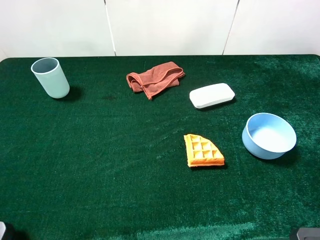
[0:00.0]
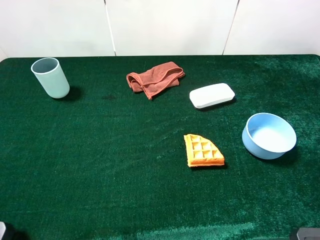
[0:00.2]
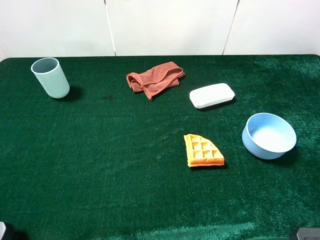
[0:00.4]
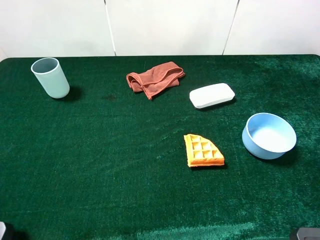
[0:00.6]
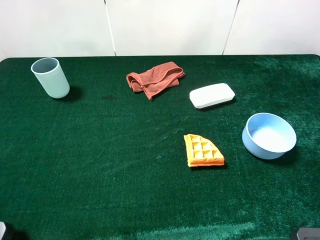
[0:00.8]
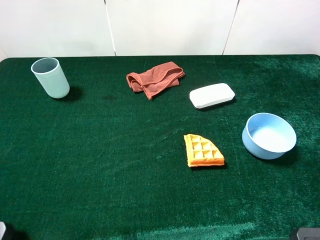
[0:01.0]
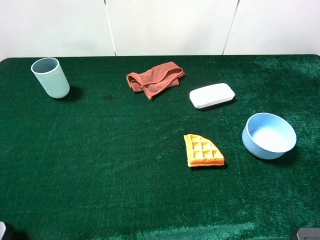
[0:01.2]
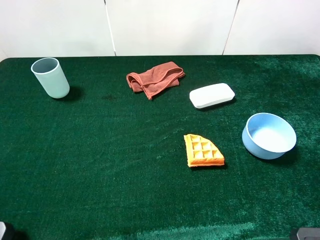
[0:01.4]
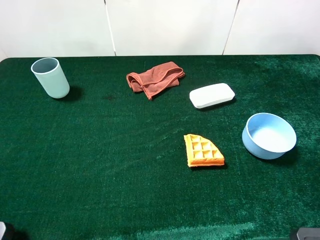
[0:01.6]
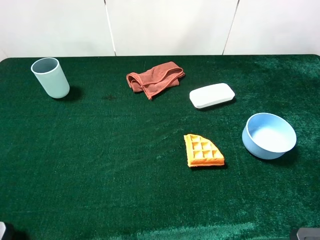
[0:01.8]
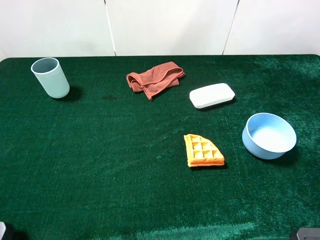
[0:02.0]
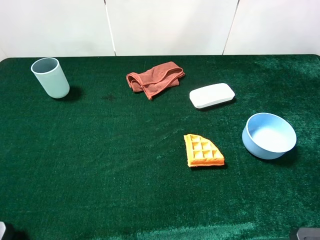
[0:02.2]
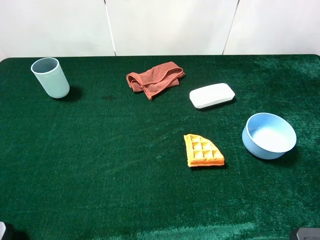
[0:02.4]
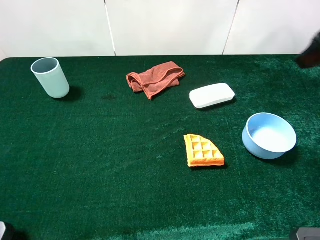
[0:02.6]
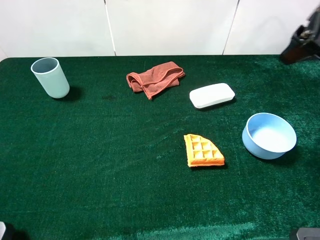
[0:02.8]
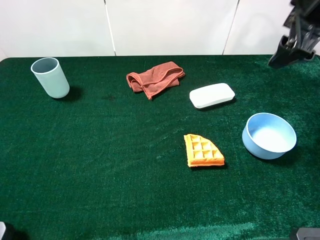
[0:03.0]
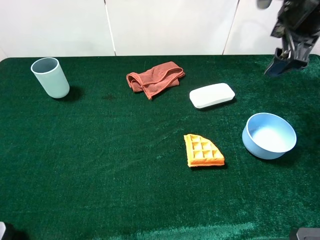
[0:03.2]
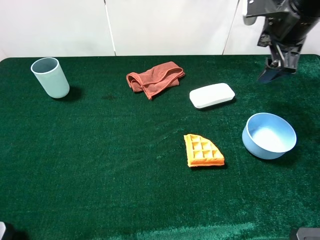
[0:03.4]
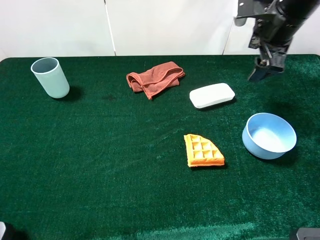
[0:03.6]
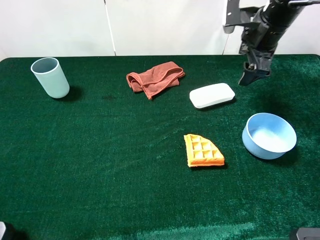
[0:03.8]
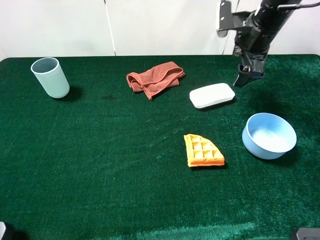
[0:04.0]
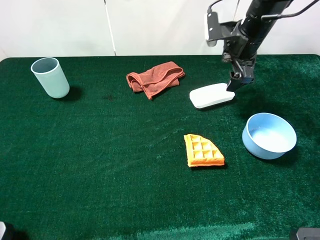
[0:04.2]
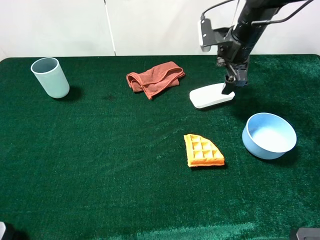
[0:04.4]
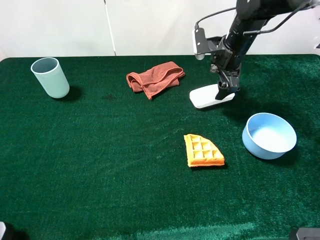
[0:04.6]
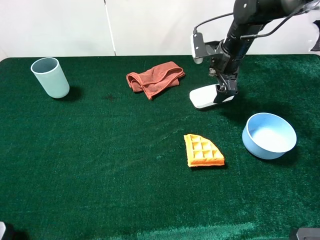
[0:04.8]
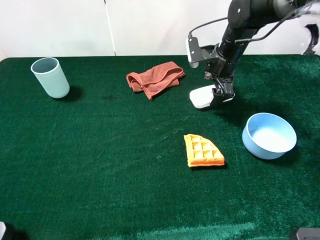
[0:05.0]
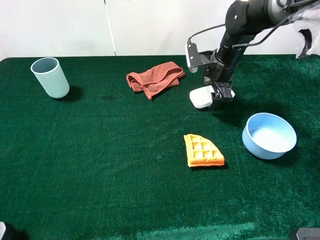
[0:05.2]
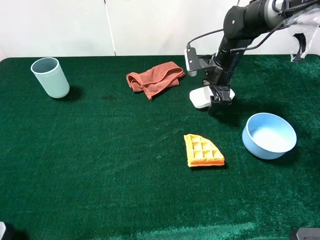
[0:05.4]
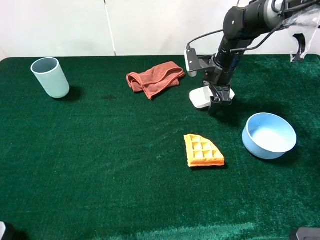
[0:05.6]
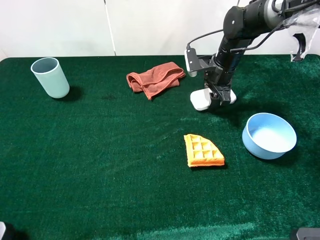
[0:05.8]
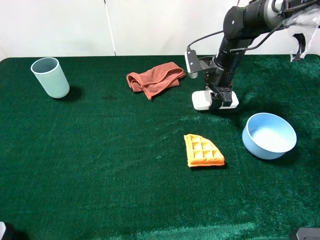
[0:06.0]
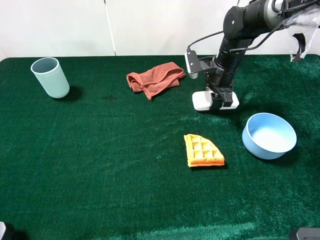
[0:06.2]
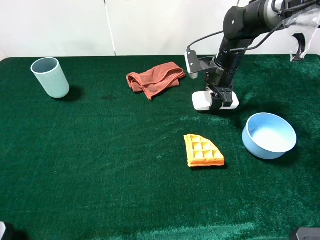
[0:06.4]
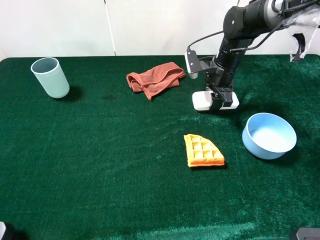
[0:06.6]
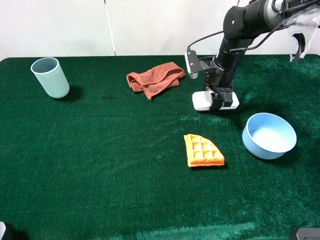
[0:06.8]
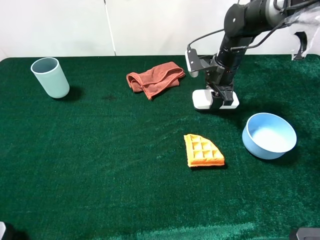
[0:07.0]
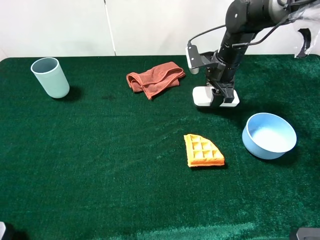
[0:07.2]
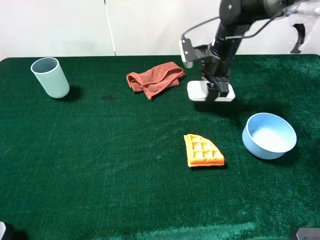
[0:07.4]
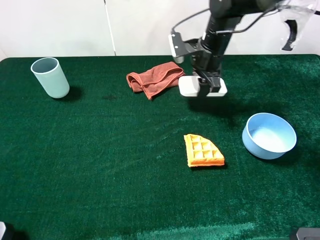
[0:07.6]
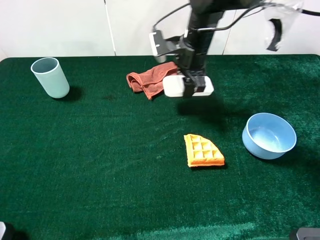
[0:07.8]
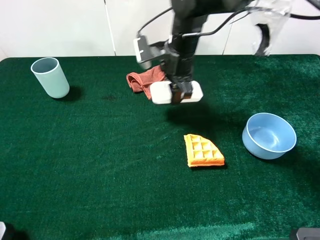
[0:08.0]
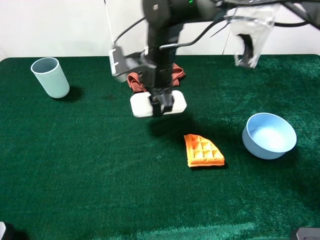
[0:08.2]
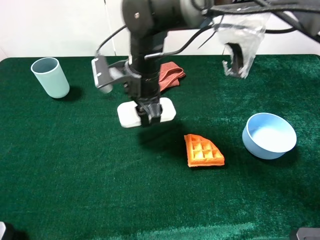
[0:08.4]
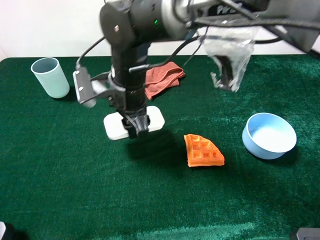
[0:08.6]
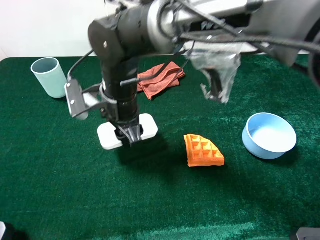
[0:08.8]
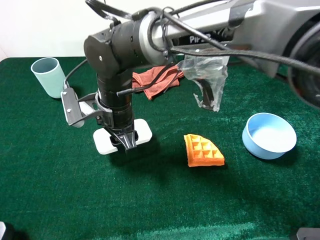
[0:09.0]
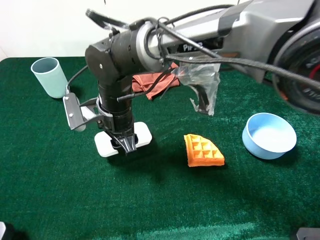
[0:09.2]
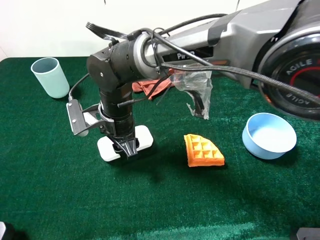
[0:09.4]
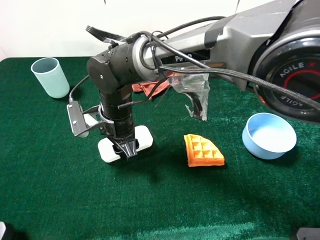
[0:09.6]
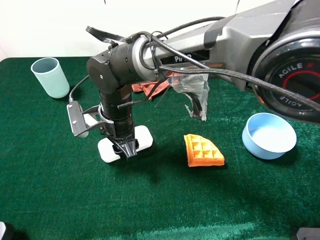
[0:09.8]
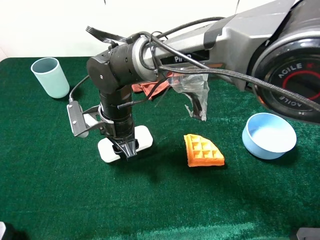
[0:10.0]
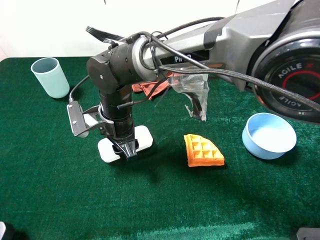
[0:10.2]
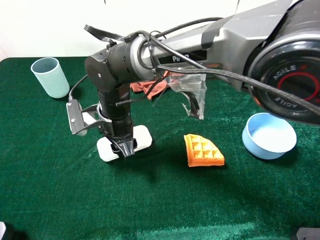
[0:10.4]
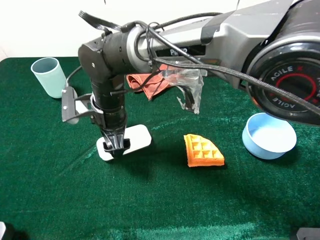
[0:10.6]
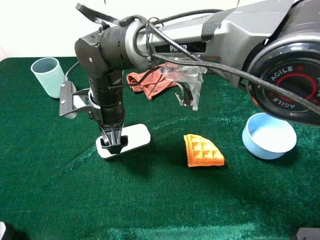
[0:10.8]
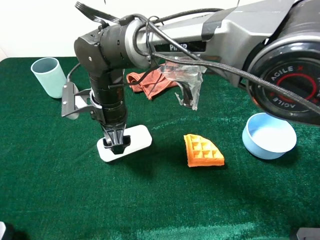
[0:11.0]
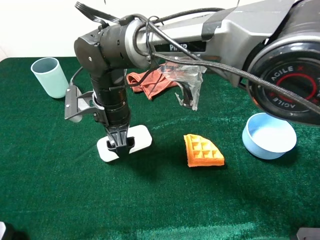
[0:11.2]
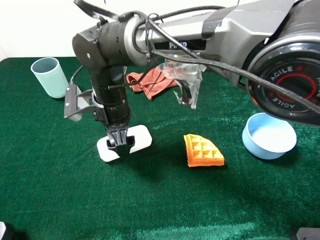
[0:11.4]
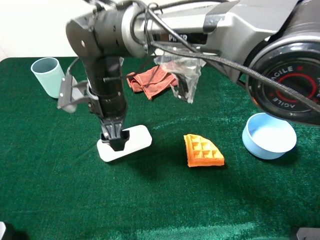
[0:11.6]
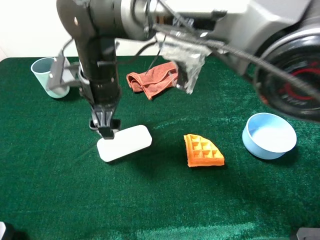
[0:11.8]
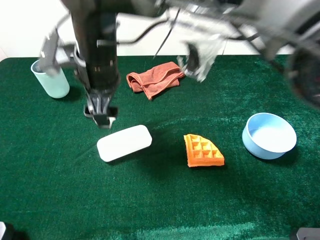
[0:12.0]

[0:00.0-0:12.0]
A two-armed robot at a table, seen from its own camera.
Task of the whole recording: the gripper move the object.
Step, 0:00.0 to 0:06.8: Grasp the white blackboard earser with the right gripper.
Step, 0:07.0 to 0:11.8: Place the white blackboard earser on the table with the right gripper.
0:01.6 to 0:03.0: The right gripper goes approximately 30 cm forward.
0:03.0 to 0:04.4: The right gripper goes roughly 15 cm downward, forward and to the left.
0:04.4 to 0:06.0: The right gripper is displaced downward by roughly 5 cm, and closes its fingers.
0:06.0 to 0:07.6: The right gripper changes place by roughly 5 cm.
0:07.6 to 0:09.0: The right gripper goes roughly 25 cm to the left and backward.
0:10.4 to 0:12.0: The right gripper travels upward by approximately 10 cm, and opens up.

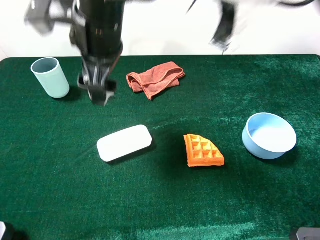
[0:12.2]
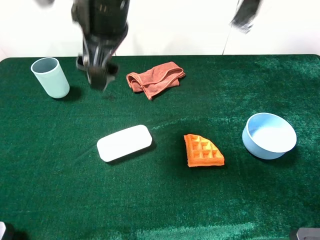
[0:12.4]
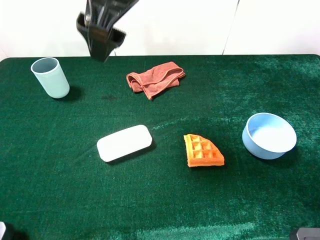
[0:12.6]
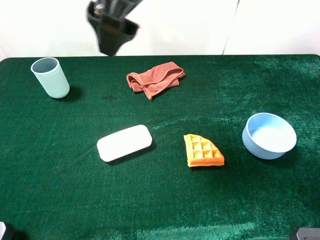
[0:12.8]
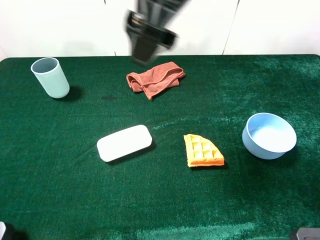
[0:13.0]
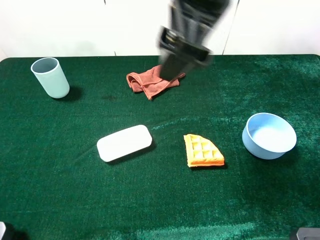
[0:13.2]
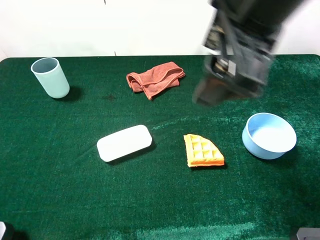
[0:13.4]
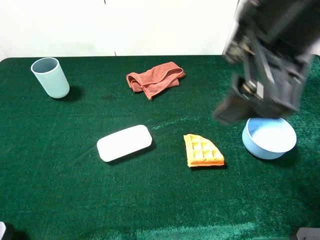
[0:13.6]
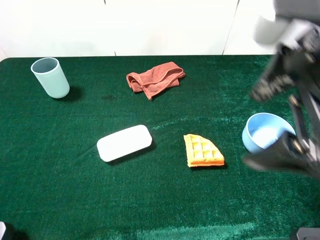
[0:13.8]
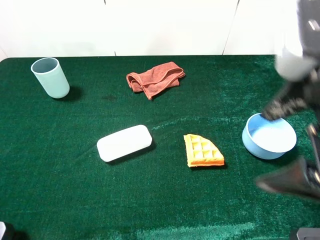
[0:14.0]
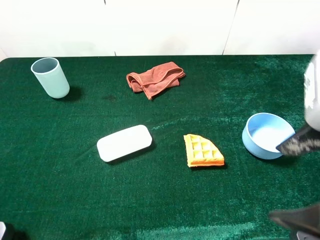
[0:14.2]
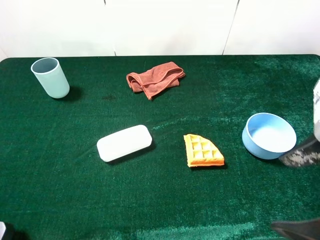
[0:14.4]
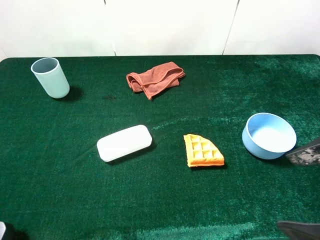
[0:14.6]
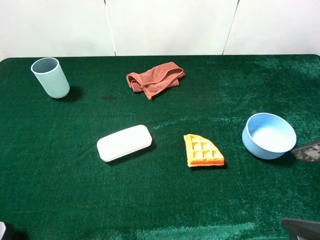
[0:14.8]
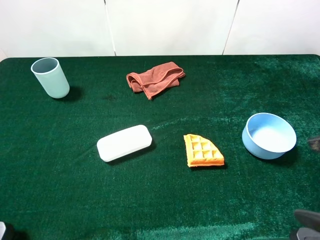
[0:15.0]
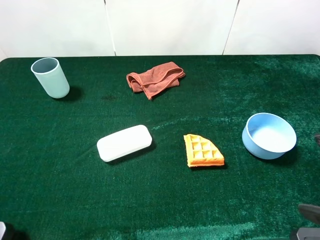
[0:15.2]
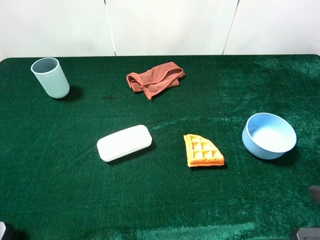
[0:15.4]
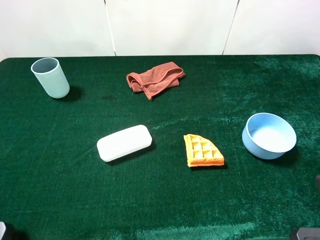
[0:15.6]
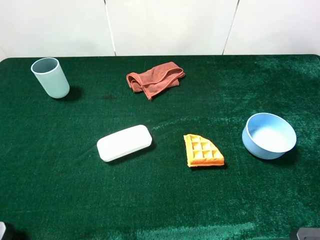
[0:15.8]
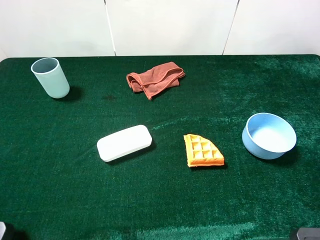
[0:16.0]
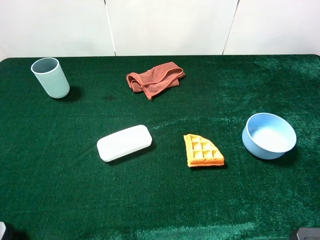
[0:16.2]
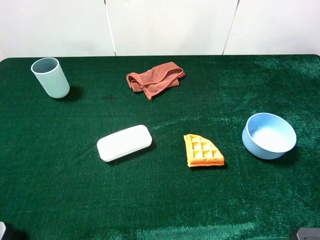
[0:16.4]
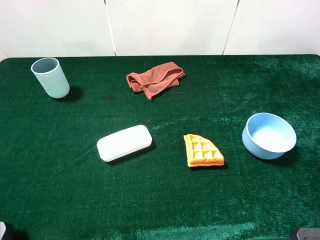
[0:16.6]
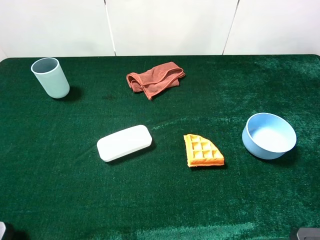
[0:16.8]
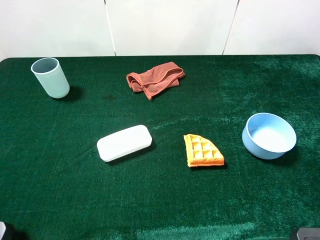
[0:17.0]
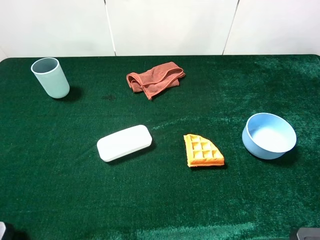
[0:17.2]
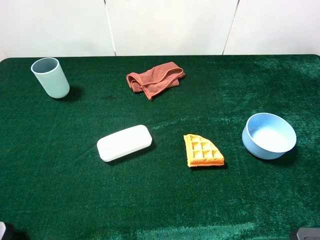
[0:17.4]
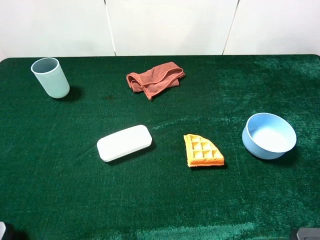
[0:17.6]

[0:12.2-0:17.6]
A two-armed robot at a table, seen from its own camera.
Task of the whole recording: the gripper move the object.
0:12.2 to 0:13.6: The right gripper is displaced to the right and backward by some 25 cm.
0:13.6 to 0:15.0: The right gripper heads to the right, backward and downward, covering about 20 cm.

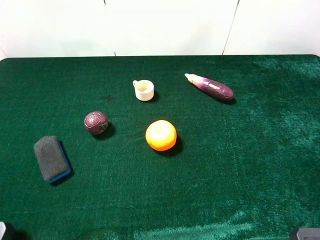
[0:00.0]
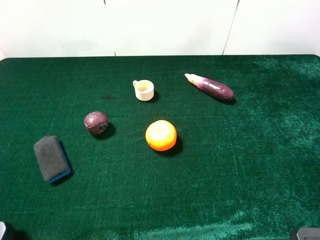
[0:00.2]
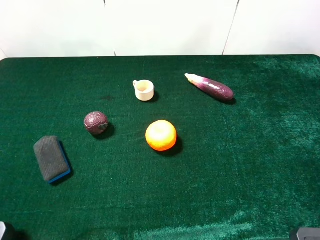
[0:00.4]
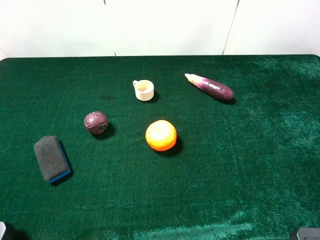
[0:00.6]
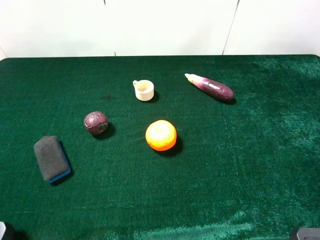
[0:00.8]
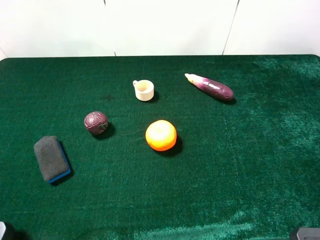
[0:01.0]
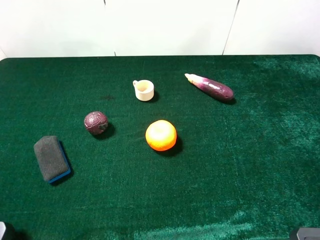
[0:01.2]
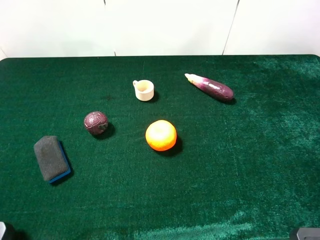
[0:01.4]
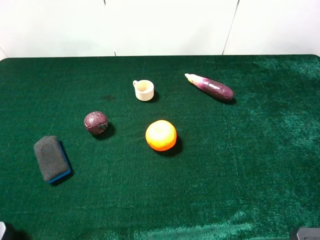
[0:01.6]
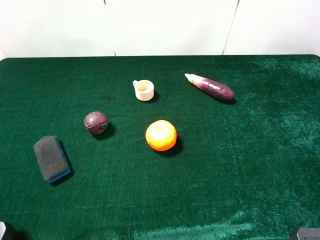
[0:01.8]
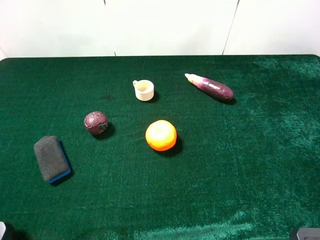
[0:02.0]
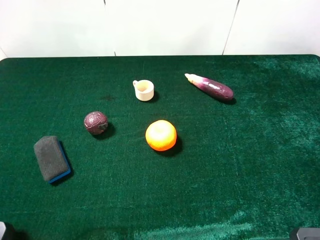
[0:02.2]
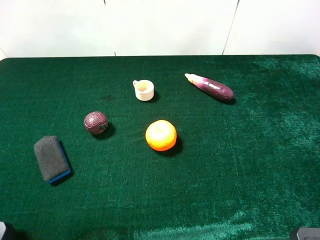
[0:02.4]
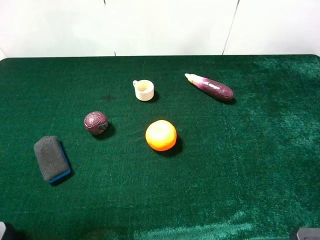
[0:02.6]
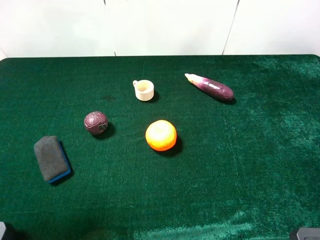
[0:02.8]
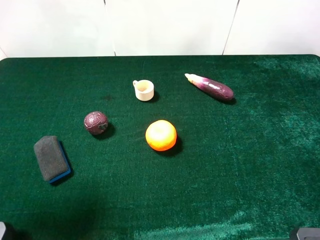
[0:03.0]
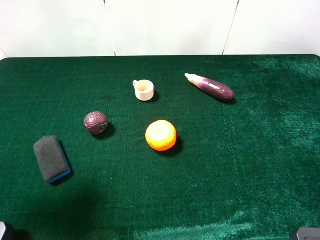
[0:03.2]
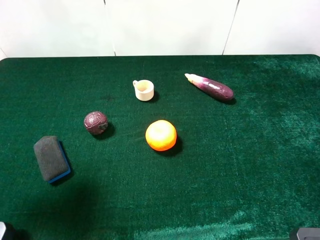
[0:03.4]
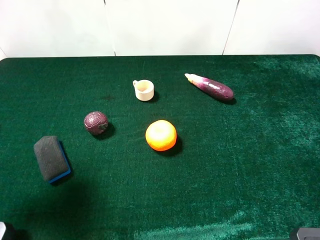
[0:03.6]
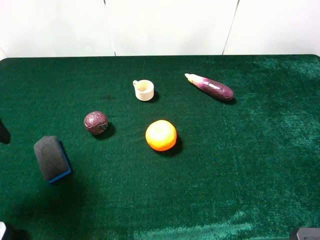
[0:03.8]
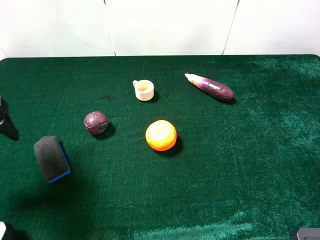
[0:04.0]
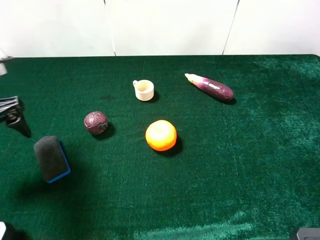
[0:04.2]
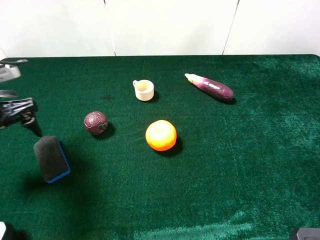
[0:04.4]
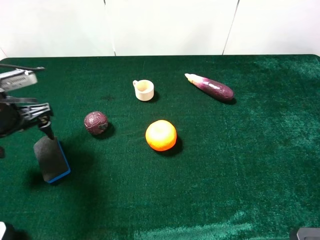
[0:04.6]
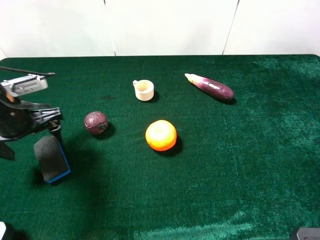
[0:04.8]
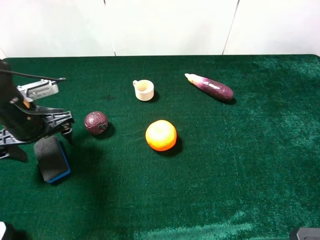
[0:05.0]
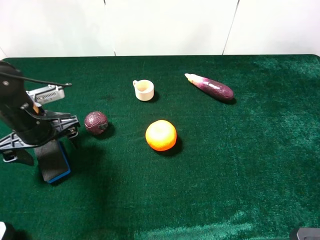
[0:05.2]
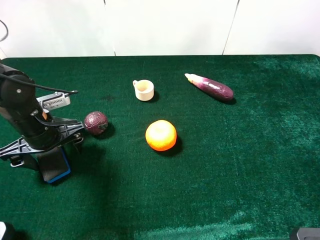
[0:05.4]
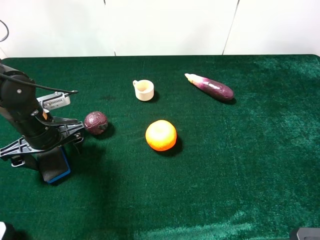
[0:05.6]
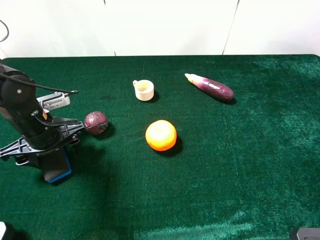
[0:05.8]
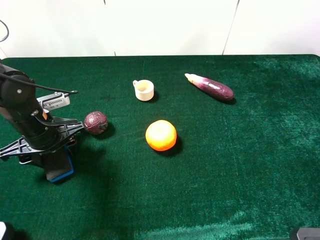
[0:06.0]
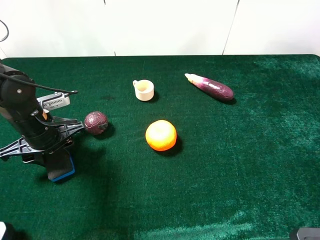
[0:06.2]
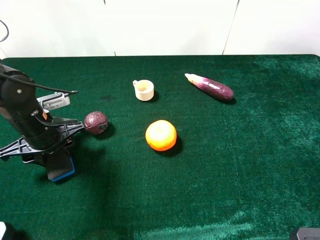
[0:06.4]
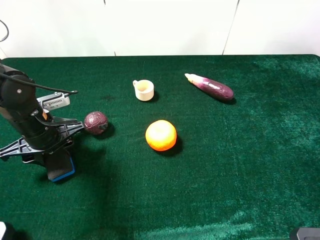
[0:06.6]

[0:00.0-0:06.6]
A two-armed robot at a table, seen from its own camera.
Task of the whole recording: the gripper move the object.
Step, 0:00.0 to 0:06.6: Grasp the blue blackboard earser with the left gripper.
0:00.0 to 0:01.6: The two grippers keep their place.
0:01.6 to 0:03.2: The left gripper goes about 15 cm forward.
0:03.2 to 0:05.0: The left gripper travels downward and forward by about 20 cm.
0:05.0 to 0:06.6: The left gripper closes its fingers.
